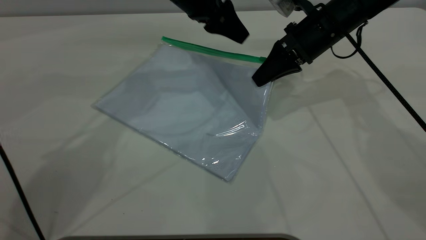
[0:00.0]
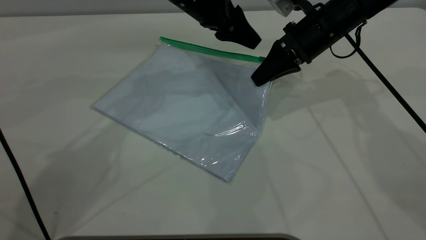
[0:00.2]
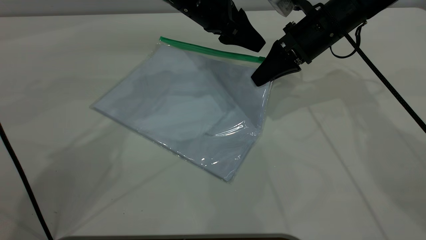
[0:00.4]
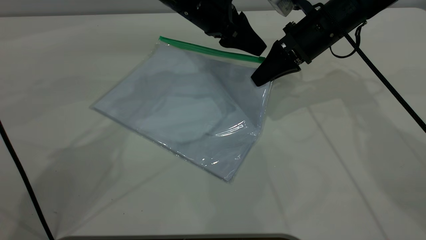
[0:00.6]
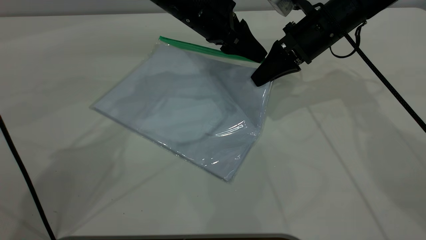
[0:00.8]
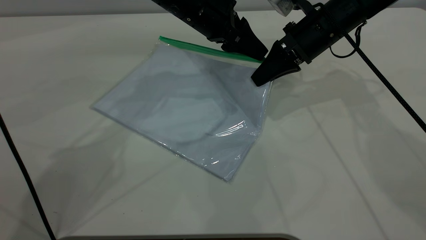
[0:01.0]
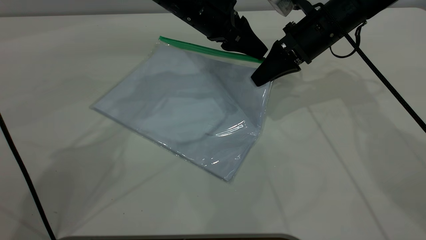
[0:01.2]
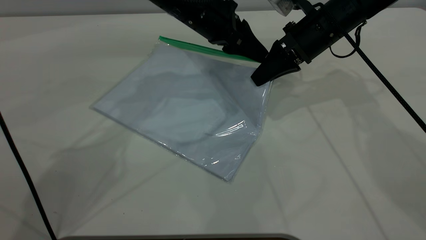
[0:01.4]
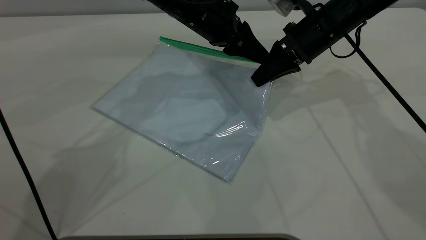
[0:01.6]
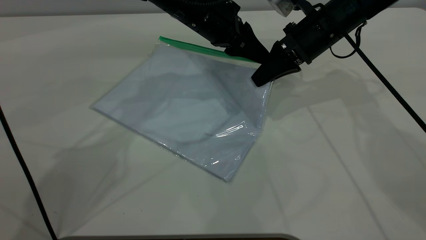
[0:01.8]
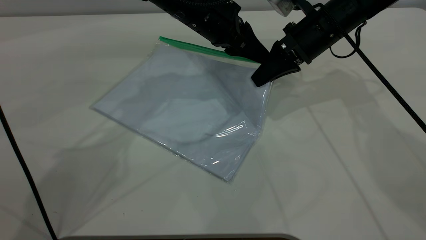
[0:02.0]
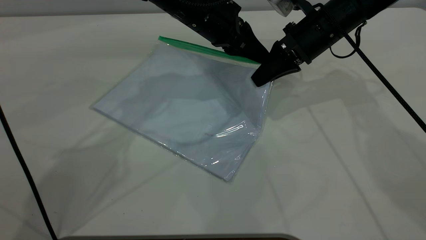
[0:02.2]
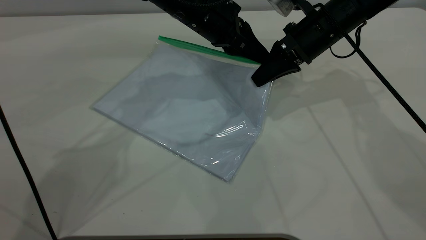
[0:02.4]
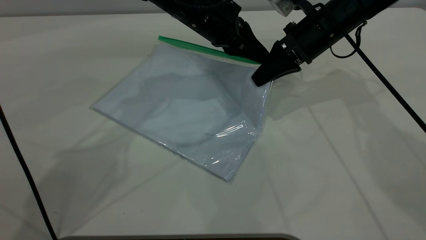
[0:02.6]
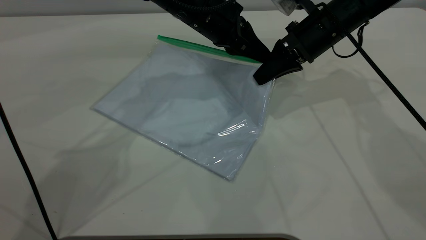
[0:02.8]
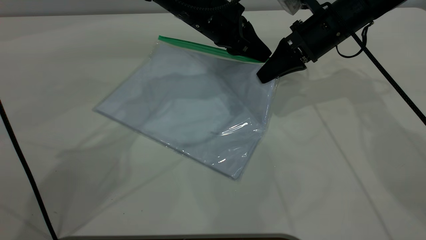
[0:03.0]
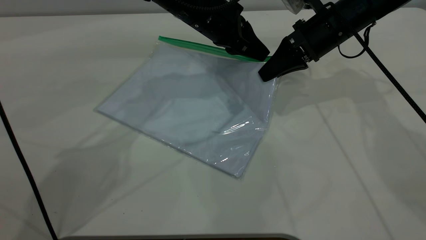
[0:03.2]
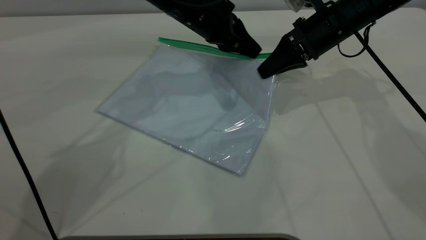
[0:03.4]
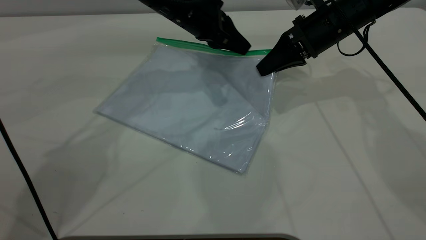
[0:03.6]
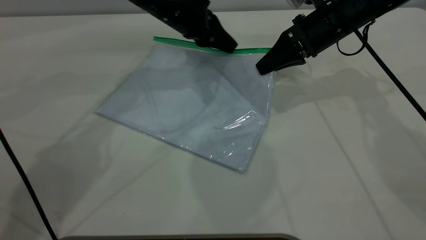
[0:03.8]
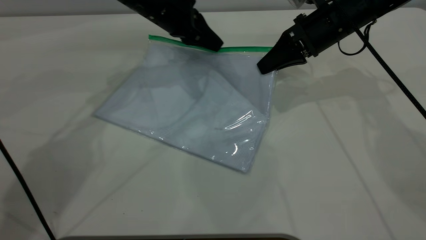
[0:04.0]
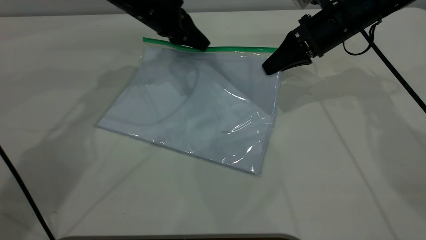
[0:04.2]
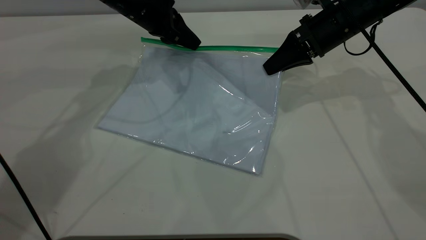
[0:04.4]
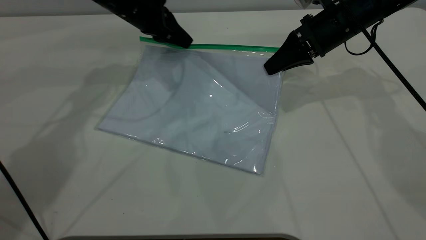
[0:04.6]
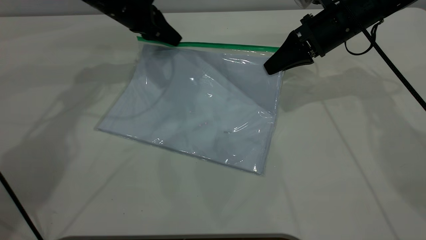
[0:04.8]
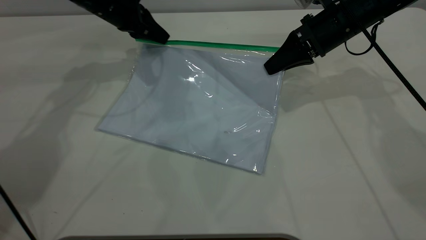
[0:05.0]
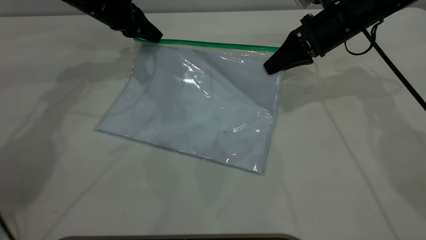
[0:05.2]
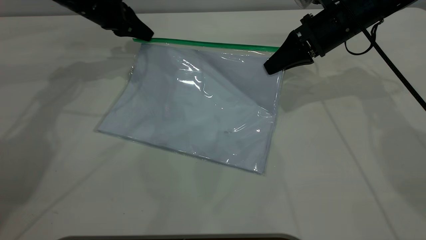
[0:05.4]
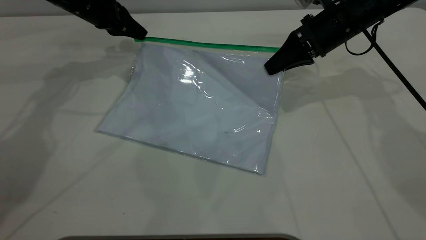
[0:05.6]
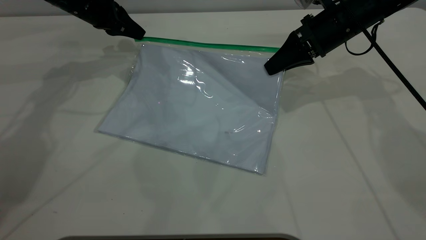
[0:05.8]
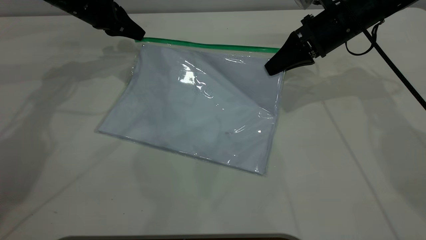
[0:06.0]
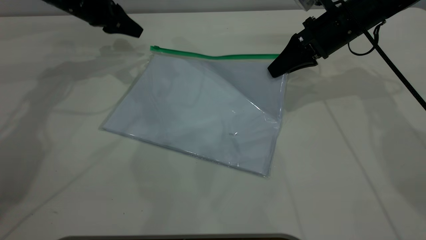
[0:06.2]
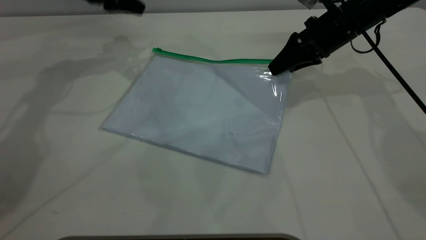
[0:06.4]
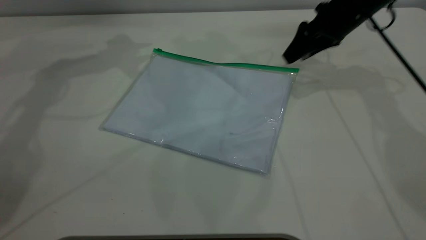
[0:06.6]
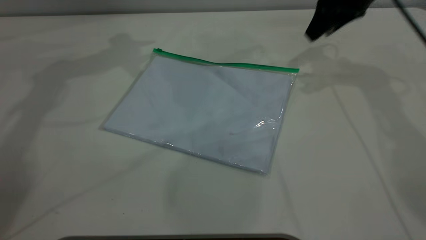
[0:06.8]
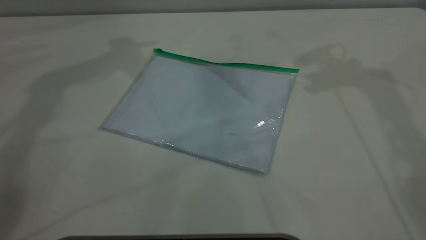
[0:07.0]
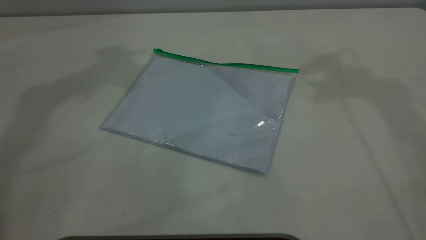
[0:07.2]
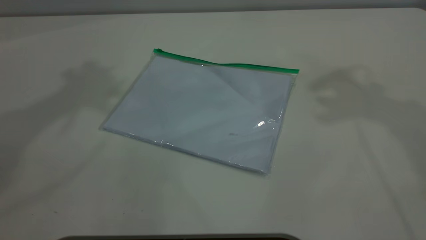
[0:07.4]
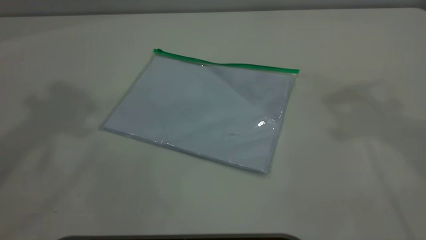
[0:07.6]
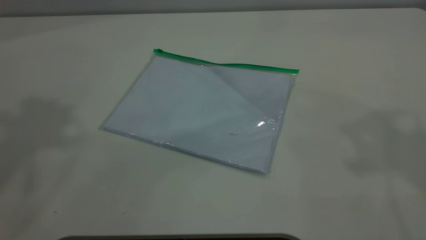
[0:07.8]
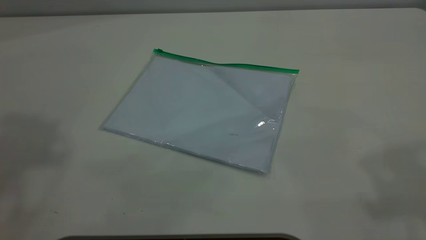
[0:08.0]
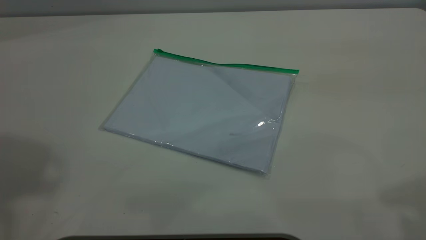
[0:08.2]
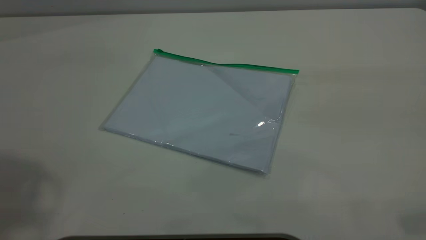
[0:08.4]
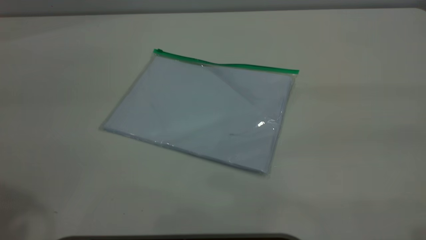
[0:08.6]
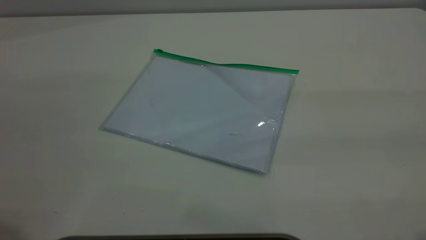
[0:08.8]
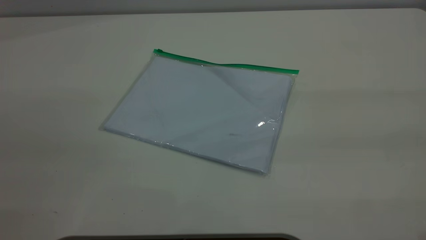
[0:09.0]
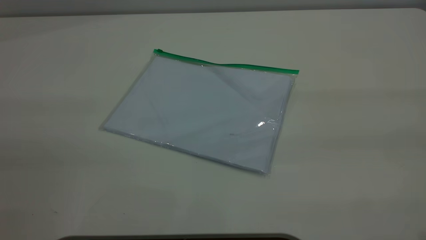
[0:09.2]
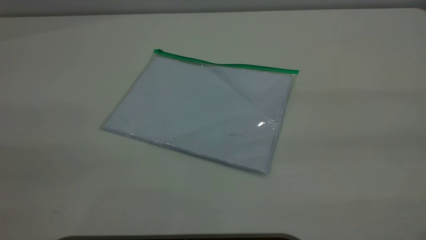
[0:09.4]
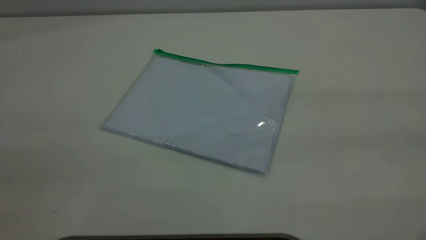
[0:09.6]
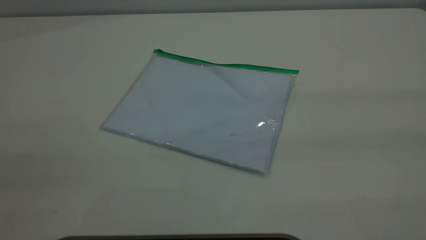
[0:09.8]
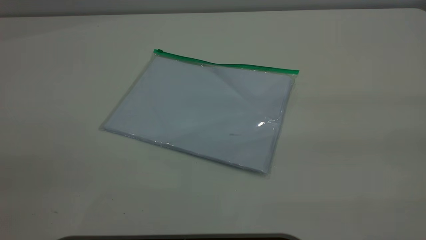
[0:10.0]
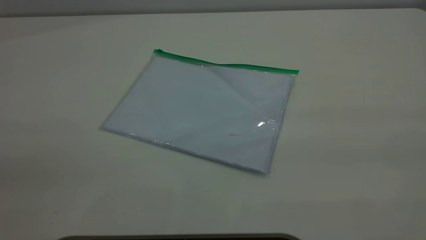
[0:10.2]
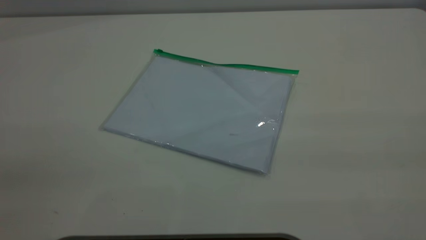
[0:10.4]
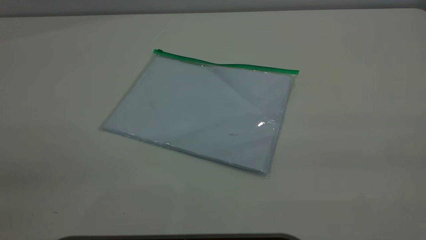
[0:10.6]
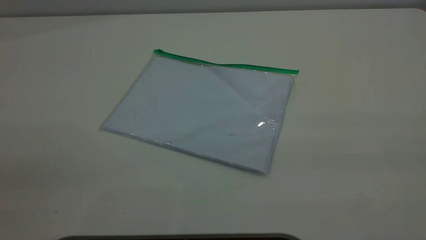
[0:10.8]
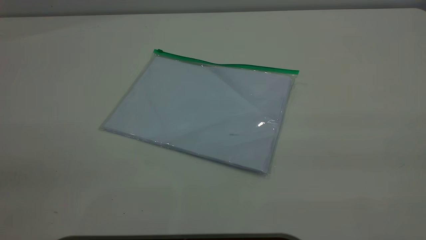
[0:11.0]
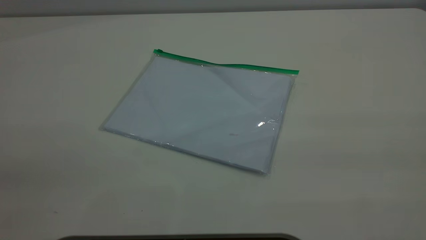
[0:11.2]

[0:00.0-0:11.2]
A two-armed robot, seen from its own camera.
Step, 0:00.0 to 0:06.0: Pulling up the zipper on the transparent plastic bag with the left gripper to close it.
Step, 0:06.4 to 0:06.6: Place the transparent plastic bag.
0:00.0 to 0:01.6: The left gripper closes its fingers.
0:01.6 to 0:03.2: The left gripper closes its fingers.
0:03.2 to 0:04.8: The left gripper heads to the left, covering about 15 cm.
0:04.8 to 0:06.4: The left gripper is displaced to the left and upward by roughly 10 cm, and opens its fingers. Meanwhile the right gripper opens.
0:06.4 to 0:08.0: The two grippers go about 50 cm upward and backward.
